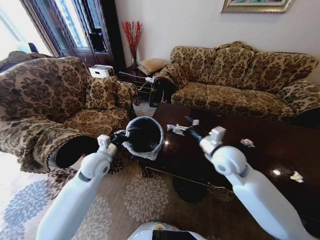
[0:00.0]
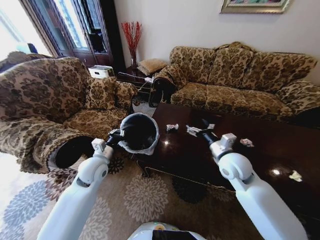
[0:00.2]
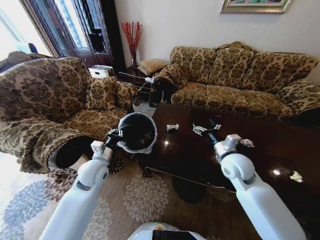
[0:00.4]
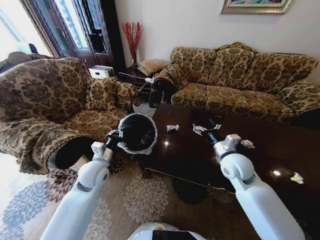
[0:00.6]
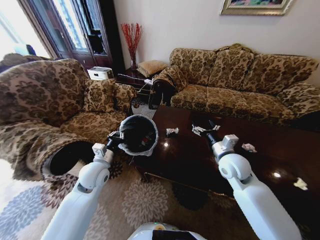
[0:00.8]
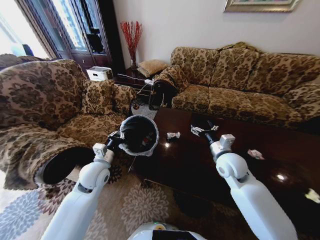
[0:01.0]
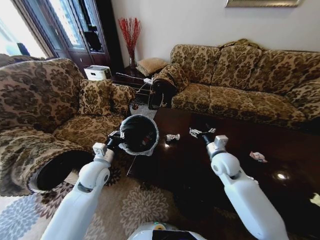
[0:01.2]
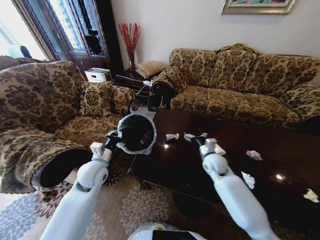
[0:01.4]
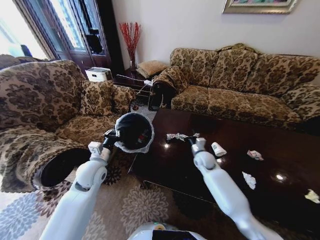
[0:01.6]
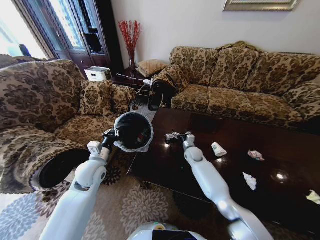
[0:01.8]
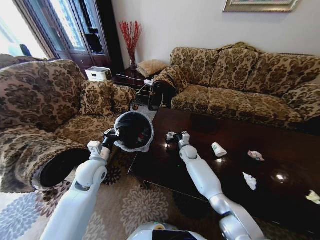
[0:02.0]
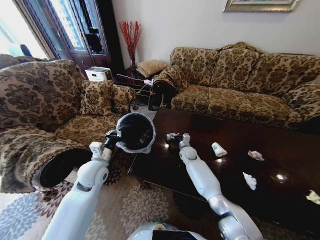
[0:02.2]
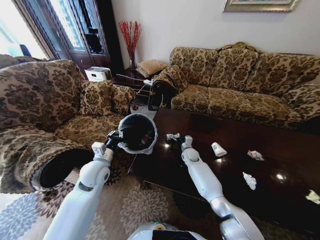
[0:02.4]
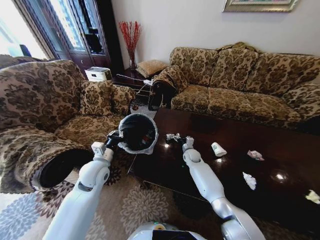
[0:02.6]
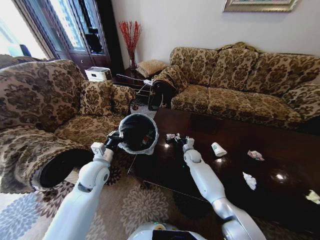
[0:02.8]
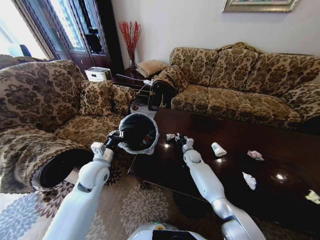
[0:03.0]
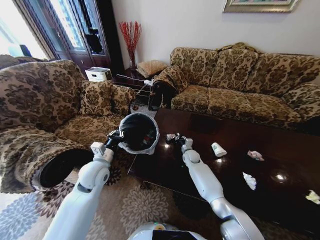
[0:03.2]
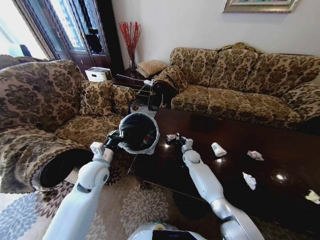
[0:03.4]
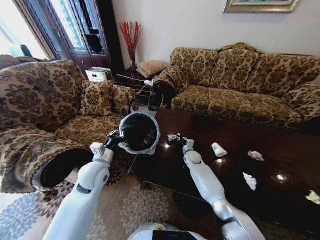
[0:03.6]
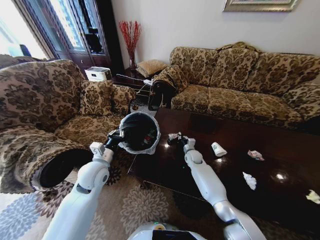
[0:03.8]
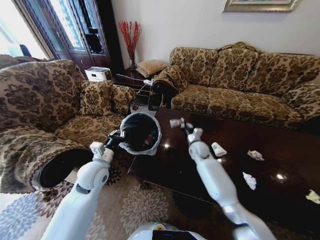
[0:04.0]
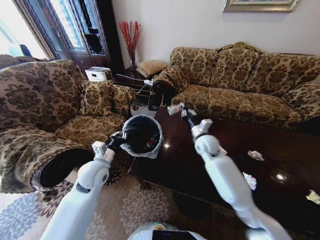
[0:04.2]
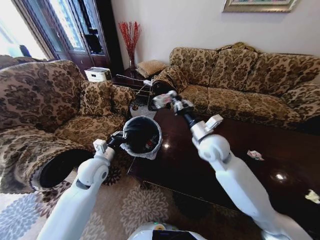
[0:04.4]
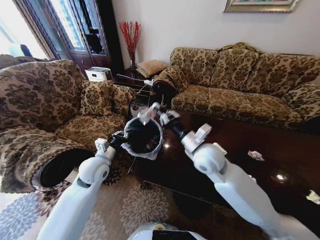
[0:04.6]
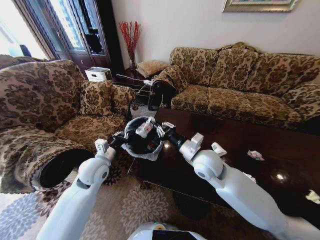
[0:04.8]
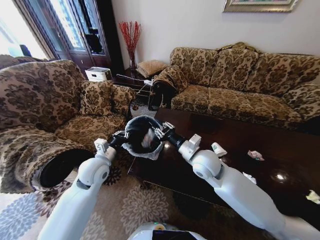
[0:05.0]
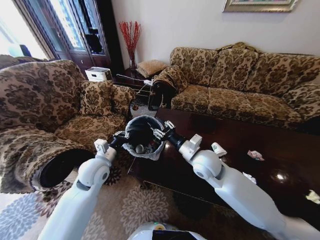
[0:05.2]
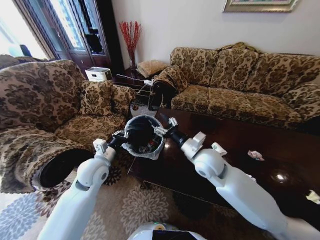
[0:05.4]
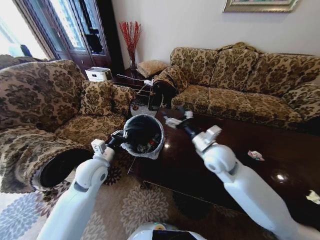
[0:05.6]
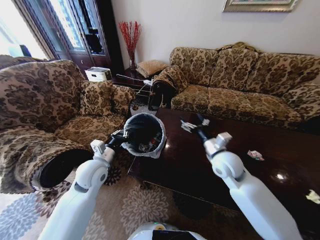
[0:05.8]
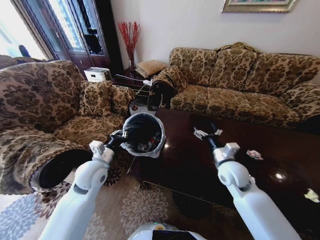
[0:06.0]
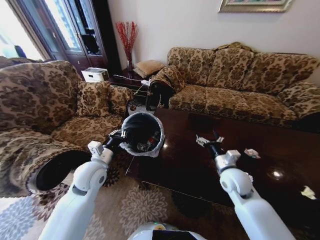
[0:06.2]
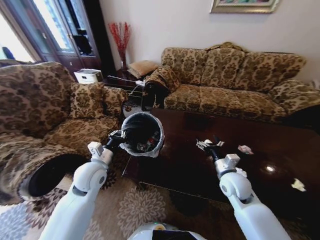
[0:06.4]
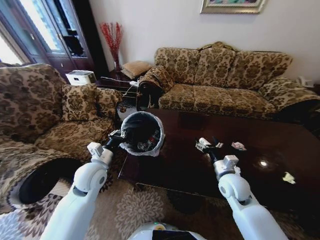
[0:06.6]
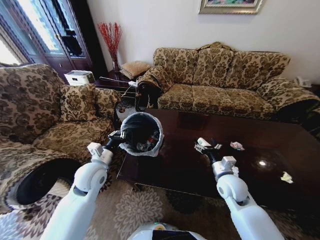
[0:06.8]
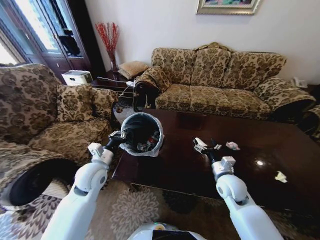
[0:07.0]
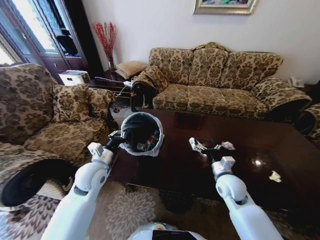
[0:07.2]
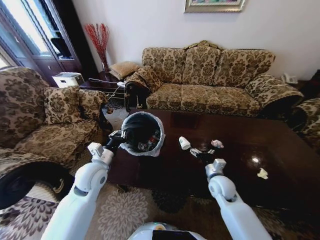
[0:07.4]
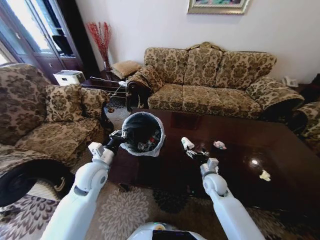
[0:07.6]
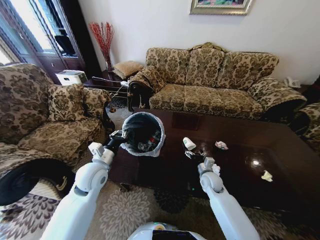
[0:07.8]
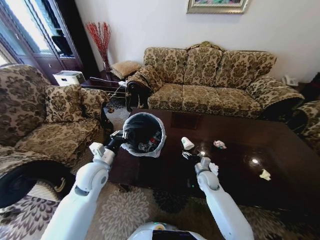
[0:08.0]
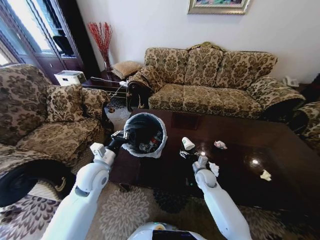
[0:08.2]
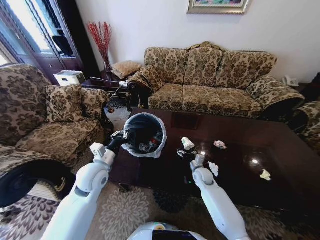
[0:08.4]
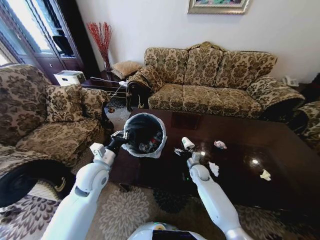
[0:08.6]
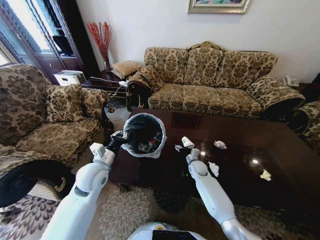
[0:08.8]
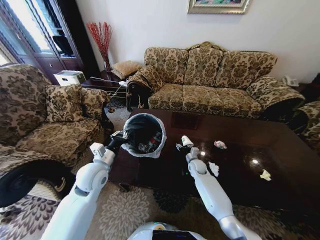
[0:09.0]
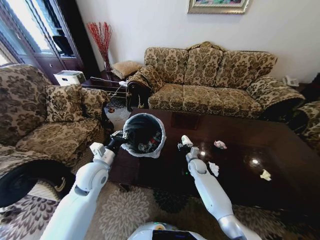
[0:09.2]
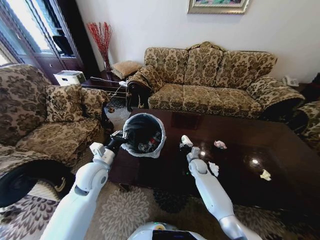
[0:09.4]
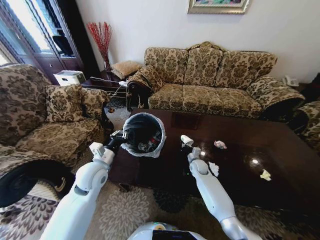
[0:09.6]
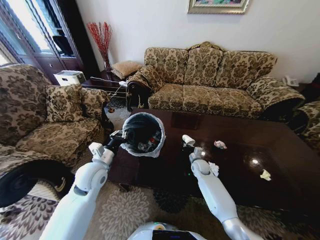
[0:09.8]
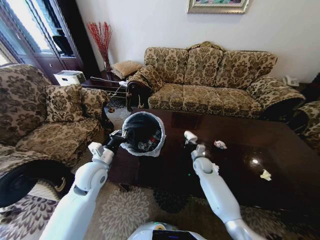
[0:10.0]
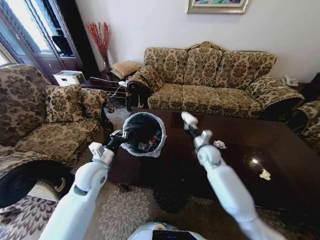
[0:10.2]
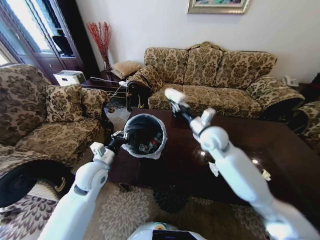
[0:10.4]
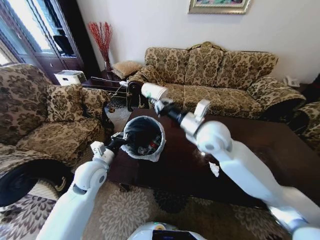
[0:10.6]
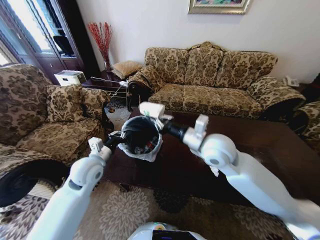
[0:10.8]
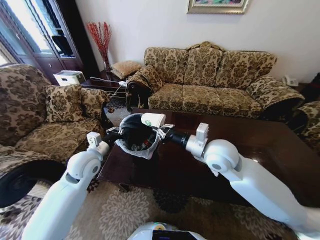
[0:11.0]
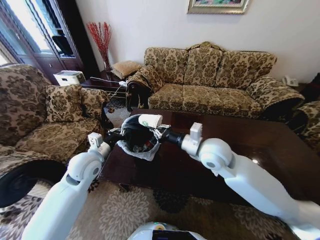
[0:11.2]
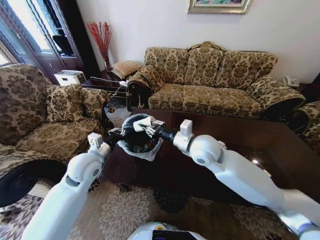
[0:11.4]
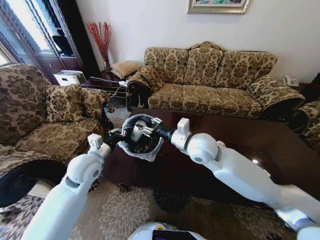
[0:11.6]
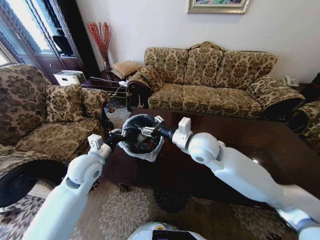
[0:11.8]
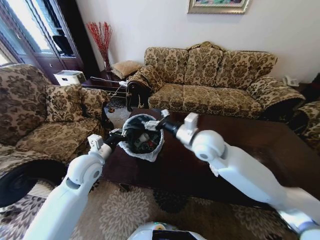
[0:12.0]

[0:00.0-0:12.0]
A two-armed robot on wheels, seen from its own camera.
Task of the whole recording: Move to the front of the table and place the trash on the table into the trash bin.
0:00.0 to 0:01.6: The right gripper moves downward and forward, roughly 20 cm.
0:01.6 to 0:03.0: The right gripper heads downward and forward, covering some 10 cm, and closes.
0:03.0 to 0:04.4: The right gripper moves upward and backward, approximately 30 cm, and closes its fingers.
0:04.4 to 0:06.0: The right gripper travels downward and to the right by roughly 15 cm, and opens up.
0:06.0 to 0:07.6: The right gripper is displaced downward by some 15 cm.
0:07.6 to 0:09.0: The right gripper shifts roughly 15 cm forward and downward.
0:09.0 to 0:10.4: The right gripper is displaced upward by approximately 30 cm, and closes up.
0:10.4 to 0:12.0: The right gripper goes approximately 5 cm backward, and opens up.

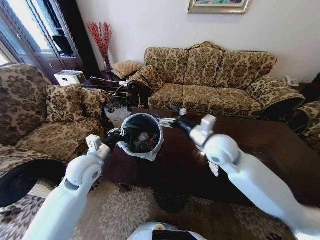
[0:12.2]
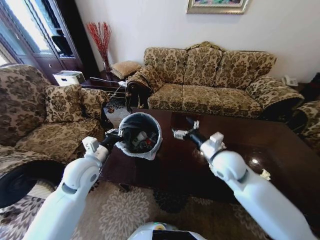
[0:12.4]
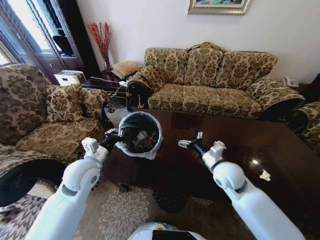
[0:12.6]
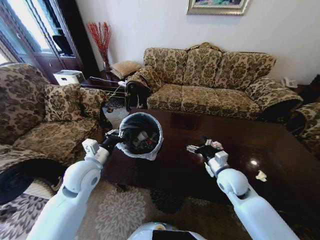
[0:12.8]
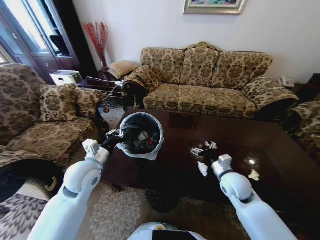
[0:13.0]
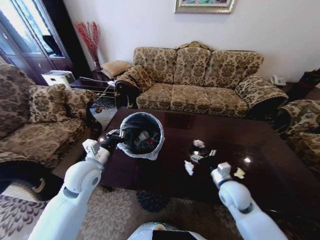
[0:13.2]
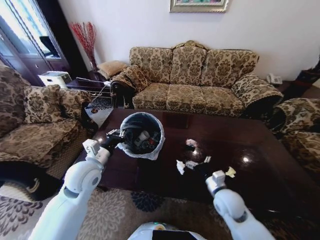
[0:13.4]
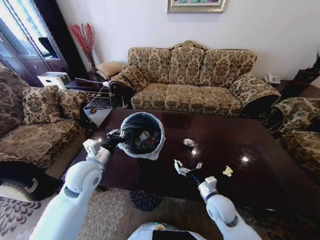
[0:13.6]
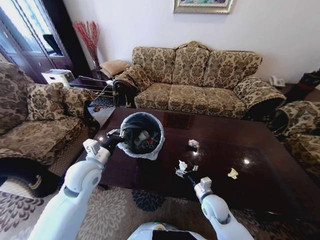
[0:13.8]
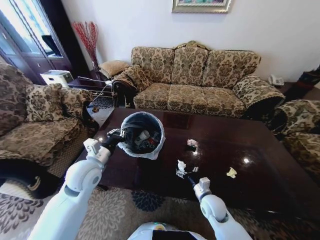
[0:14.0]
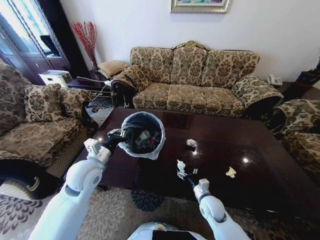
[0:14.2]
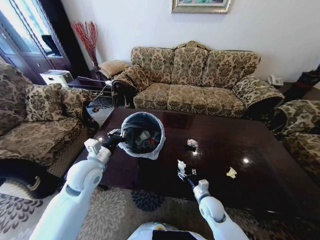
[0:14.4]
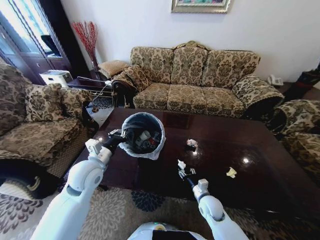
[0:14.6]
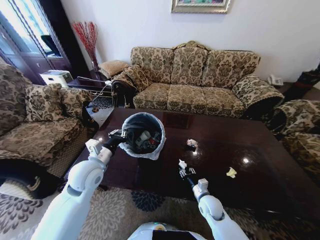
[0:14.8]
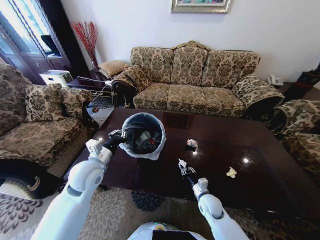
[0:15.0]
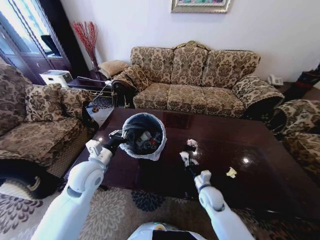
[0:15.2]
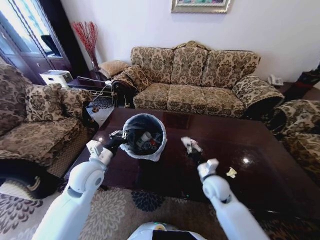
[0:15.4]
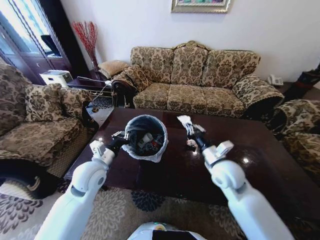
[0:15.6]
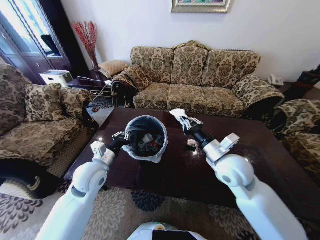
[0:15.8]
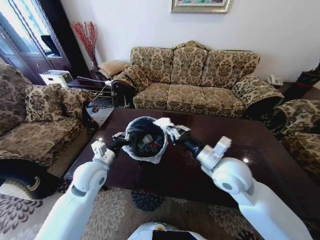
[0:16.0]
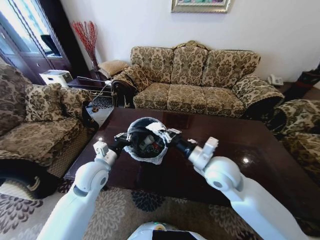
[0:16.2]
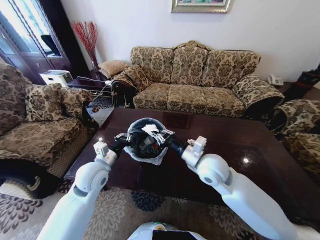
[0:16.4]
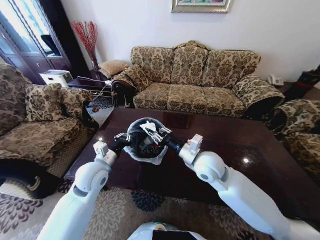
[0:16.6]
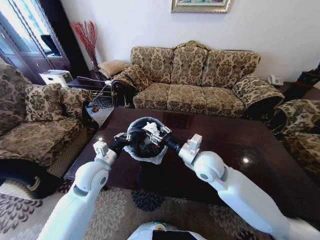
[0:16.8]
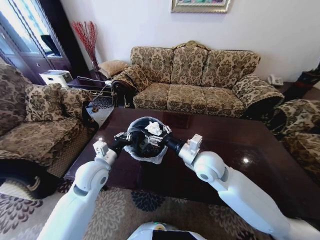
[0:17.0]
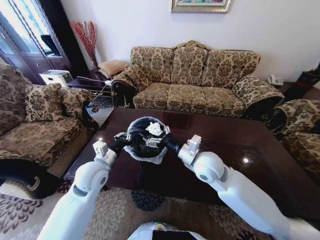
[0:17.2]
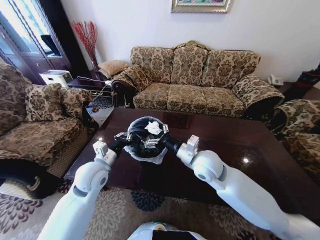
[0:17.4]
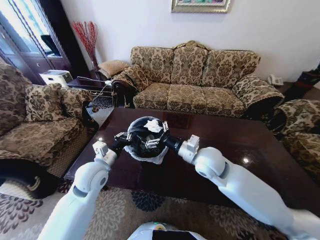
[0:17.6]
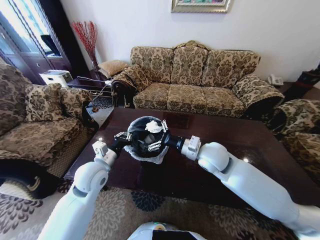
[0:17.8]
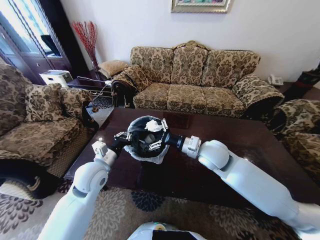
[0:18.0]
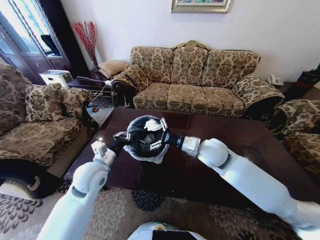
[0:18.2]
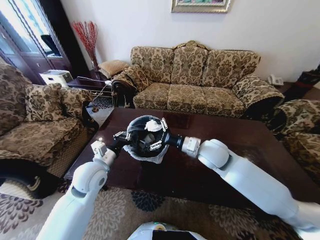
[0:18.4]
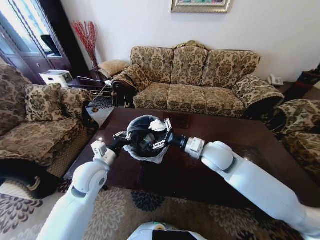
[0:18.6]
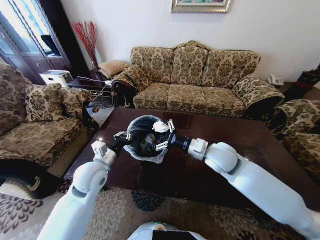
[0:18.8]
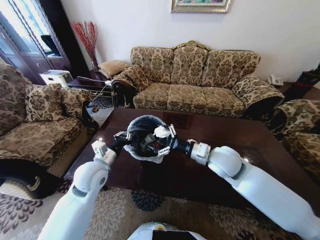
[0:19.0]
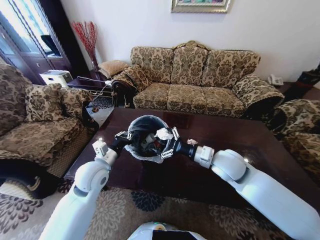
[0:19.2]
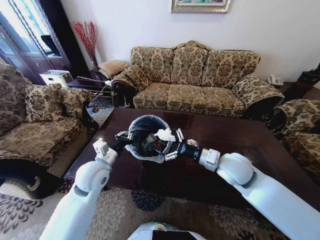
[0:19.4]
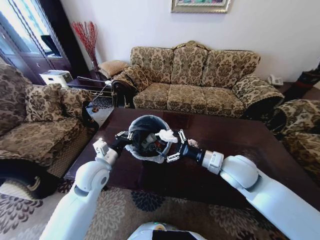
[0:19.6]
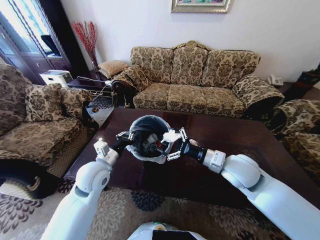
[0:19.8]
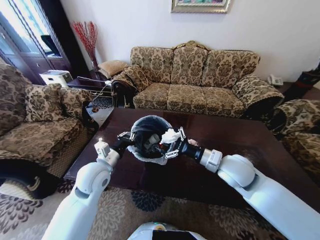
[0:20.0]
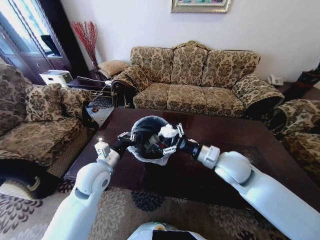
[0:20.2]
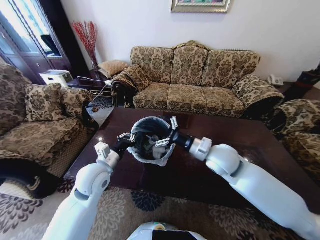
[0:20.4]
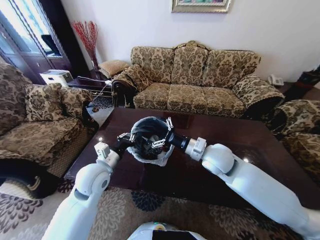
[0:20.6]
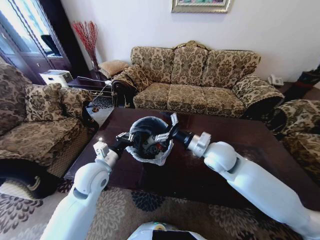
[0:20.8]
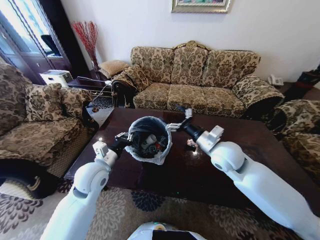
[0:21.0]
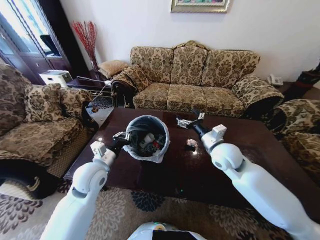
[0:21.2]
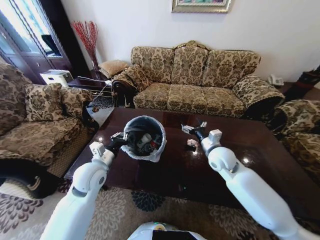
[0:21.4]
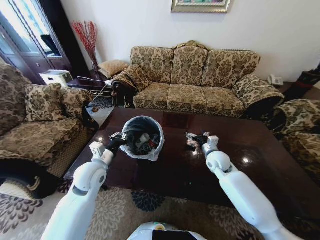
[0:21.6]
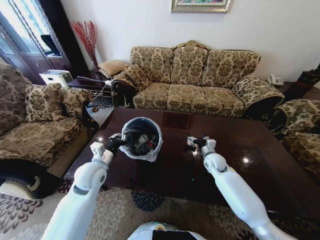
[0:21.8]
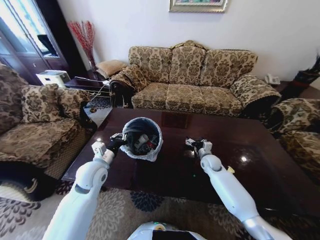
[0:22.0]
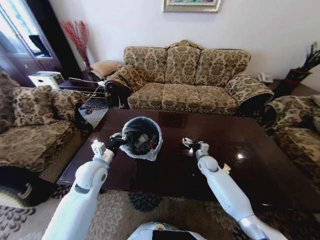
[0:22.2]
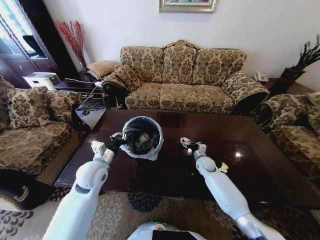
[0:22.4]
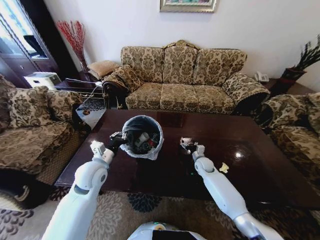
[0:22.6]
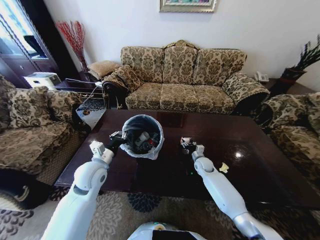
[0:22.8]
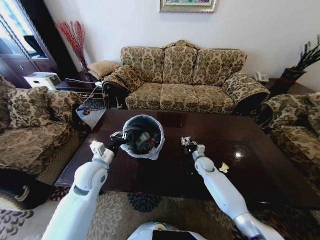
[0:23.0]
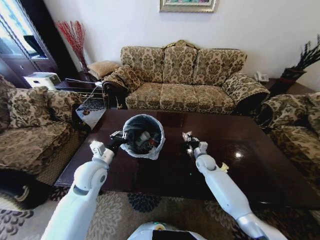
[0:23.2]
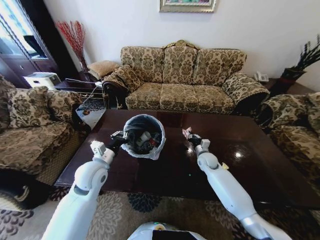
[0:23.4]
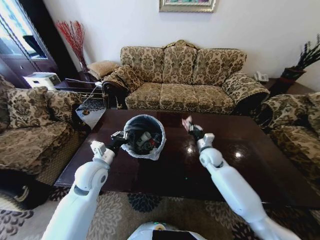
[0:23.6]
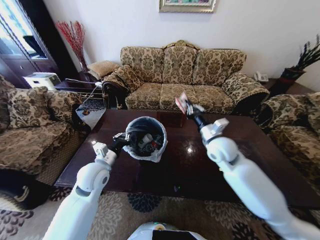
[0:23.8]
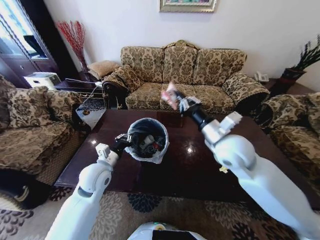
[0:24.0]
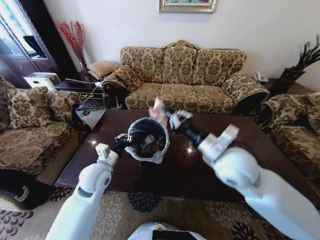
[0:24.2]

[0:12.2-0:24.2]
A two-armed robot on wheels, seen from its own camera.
Task of the whole recording: Move to the front of the table and place the trash on the table into the trash bin.
0:12.2 to 0:13.8: The right gripper travels downward by about 25 cm.
0:13.8 to 0:15.2: The right gripper closes.
0:15.2 to 0:16.6: The right gripper heads upward, covering roughly 25 cm.
0:16.6 to 0:18.2: The right gripper opens.
0:18.2 to 0:19.8: The right gripper moves to the right and backward, approximately 10 cm.
0:19.8 to 0:21.2: The right gripper shifts roughly 5 cm forward.
0:21.2 to 0:22.6: The right gripper heads downward, covering about 25 cm.
0:22.6 to 0:24.2: The right gripper travels upward and backward by about 35 cm, and closes up.
